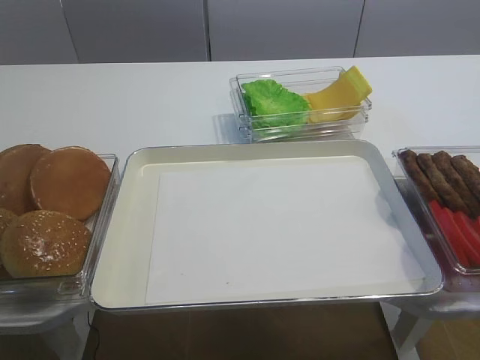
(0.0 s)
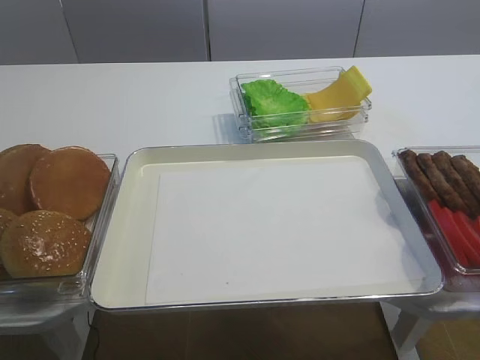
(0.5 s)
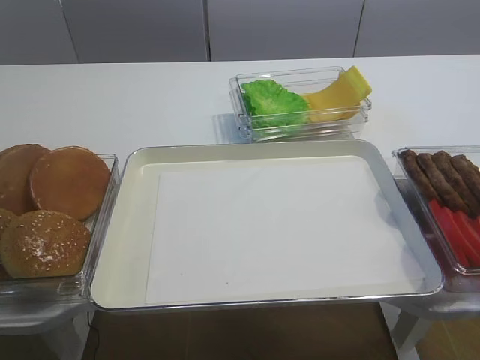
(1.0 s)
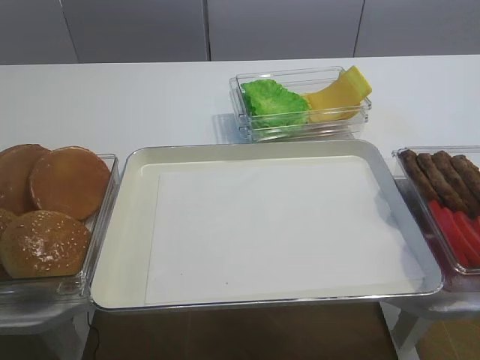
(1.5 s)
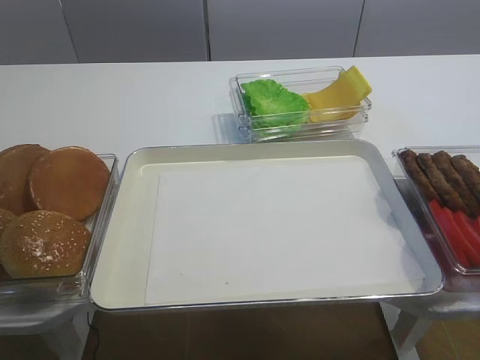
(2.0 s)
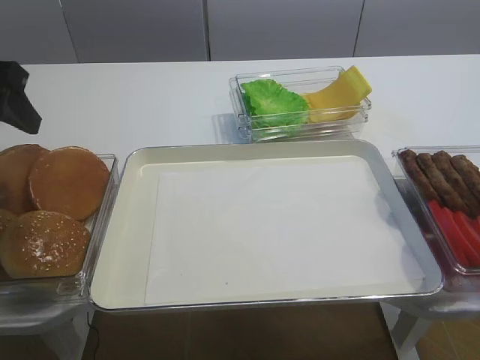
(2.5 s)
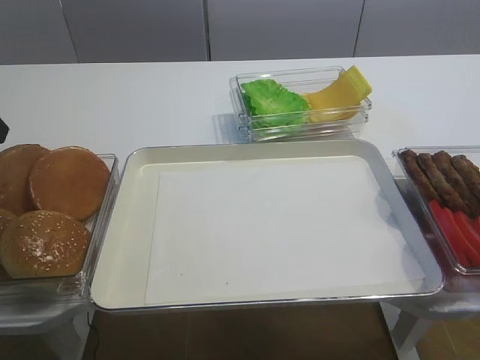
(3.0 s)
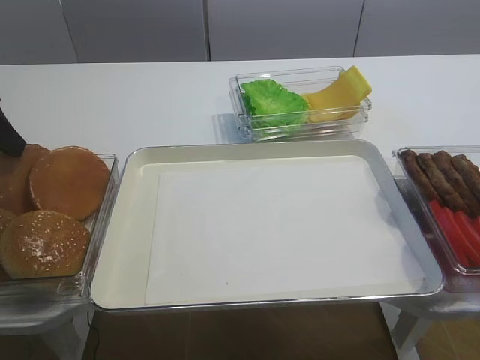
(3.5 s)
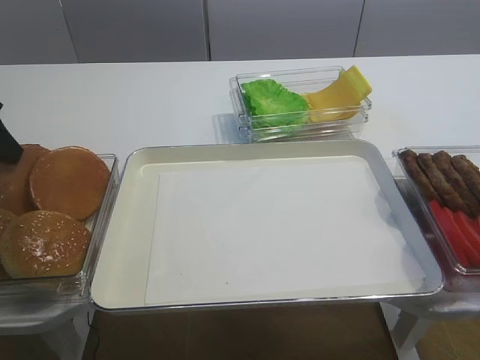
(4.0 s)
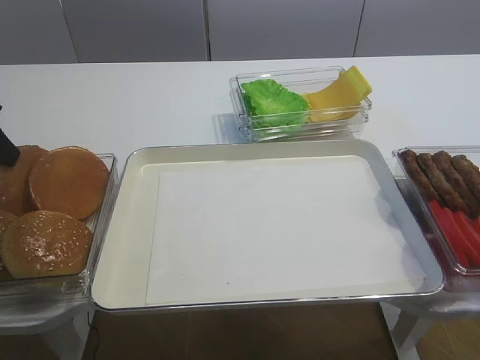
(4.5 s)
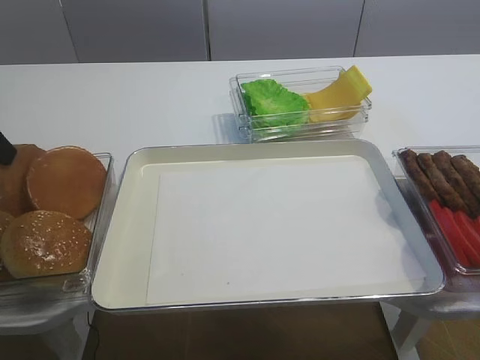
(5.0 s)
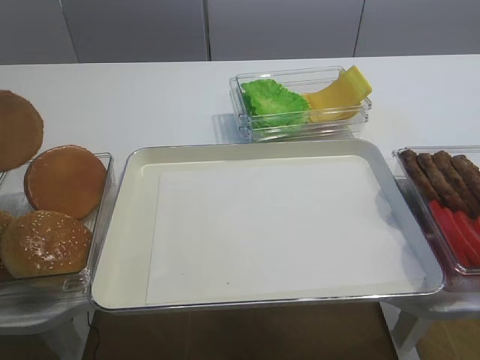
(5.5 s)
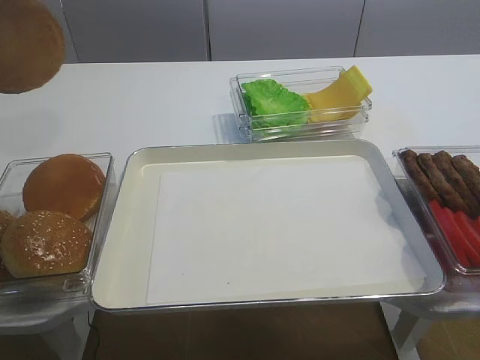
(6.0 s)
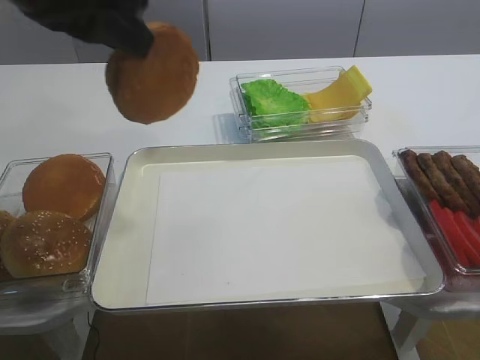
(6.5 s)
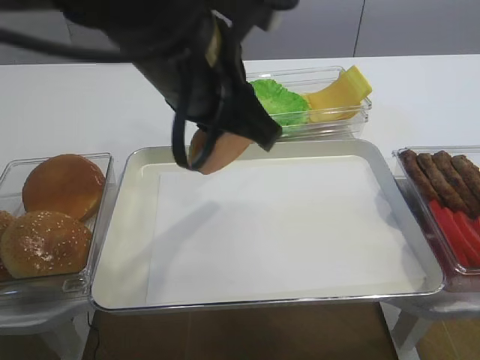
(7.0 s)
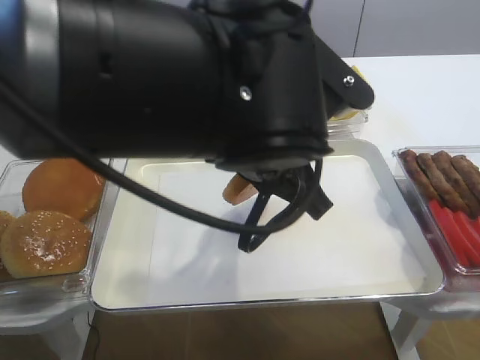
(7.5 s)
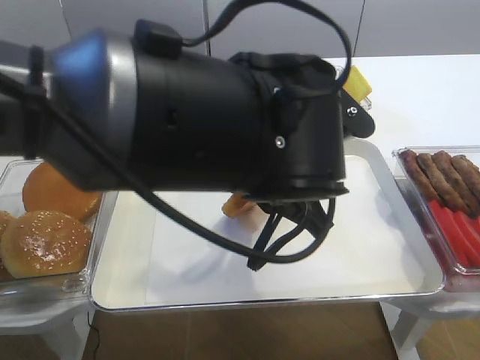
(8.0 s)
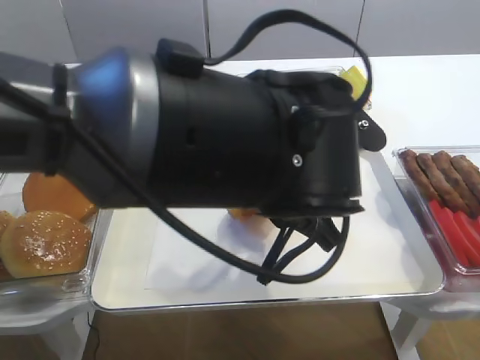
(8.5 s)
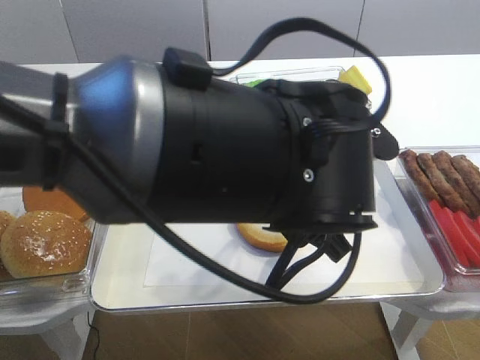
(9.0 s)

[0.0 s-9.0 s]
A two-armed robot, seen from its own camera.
Step, 0.0 to 5.0 s: Pick up the bread slice with the left gripper.
2.0 to 4.5 s: The left gripper travels forward and downward by some 15 cm, and closes its fingers.
4.5 to 7.0 s: The left gripper goes about 30 cm to the right.
7.0 to 9.0 s: The left gripper heads to the right and downward, covering roughly 10 cm, and opens its fingers.

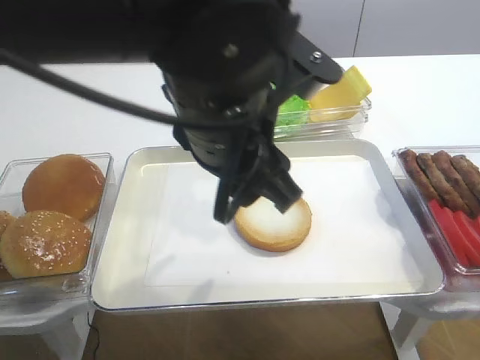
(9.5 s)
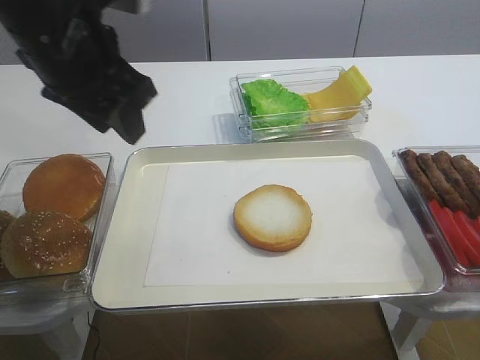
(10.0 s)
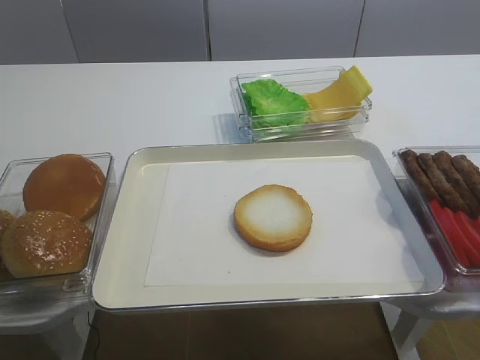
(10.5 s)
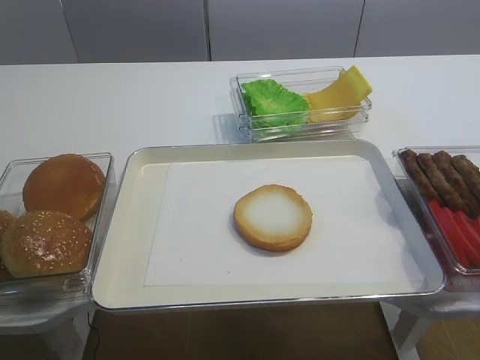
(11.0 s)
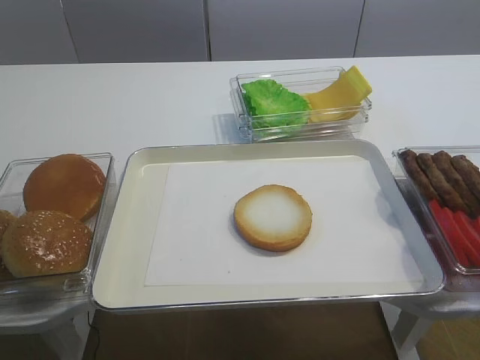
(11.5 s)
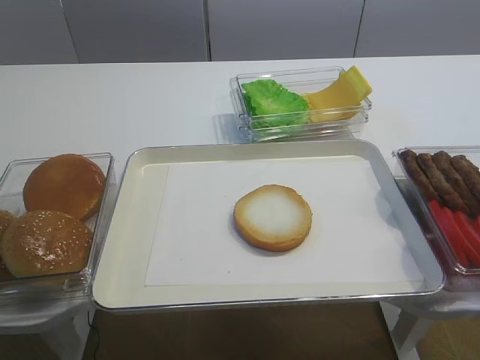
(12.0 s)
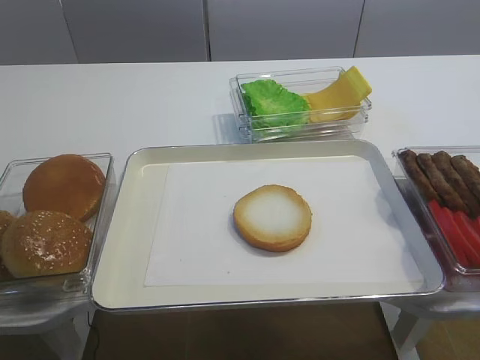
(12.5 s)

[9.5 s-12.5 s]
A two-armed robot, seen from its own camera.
9.5 to 11.0 s: The left gripper heads to the left, covering approximately 25 cm, and closes its fingers.

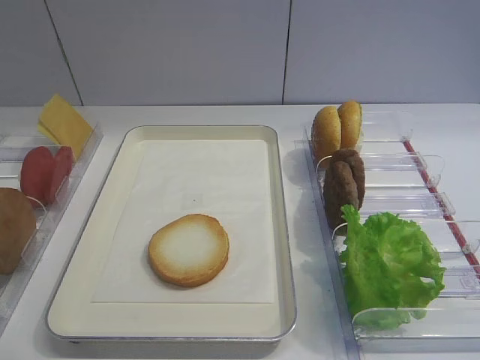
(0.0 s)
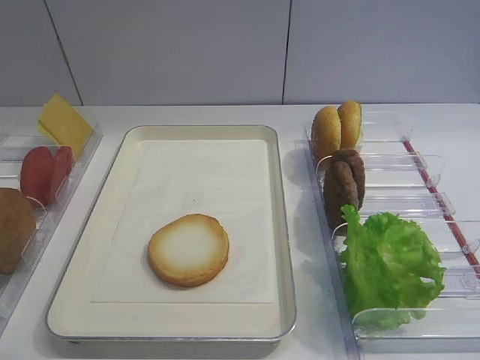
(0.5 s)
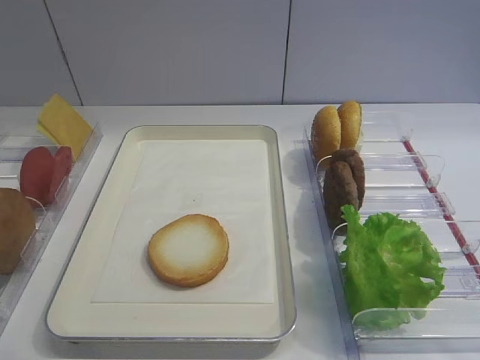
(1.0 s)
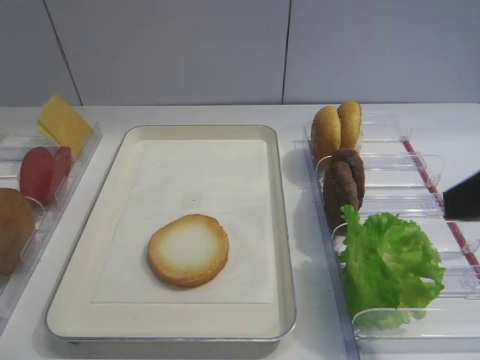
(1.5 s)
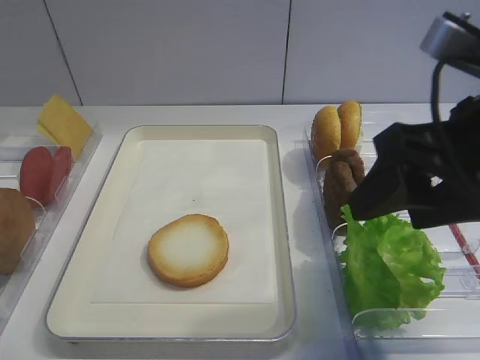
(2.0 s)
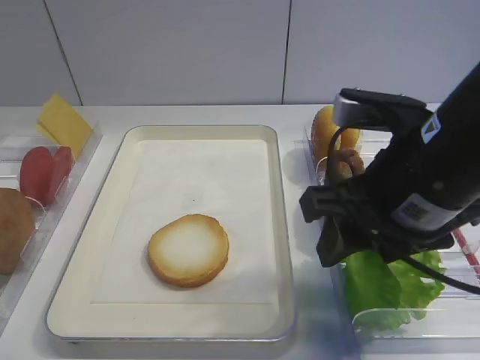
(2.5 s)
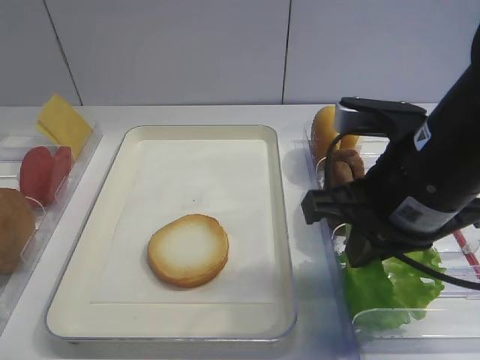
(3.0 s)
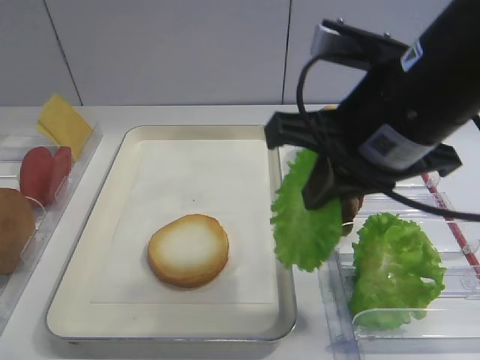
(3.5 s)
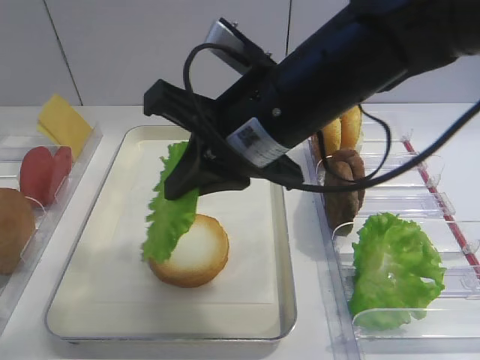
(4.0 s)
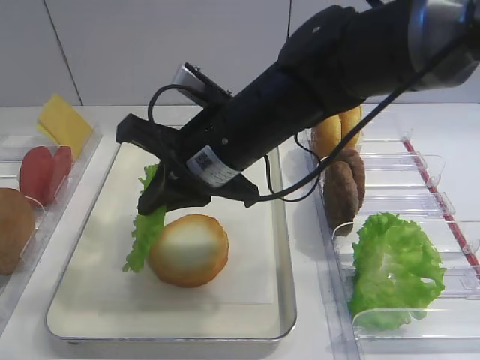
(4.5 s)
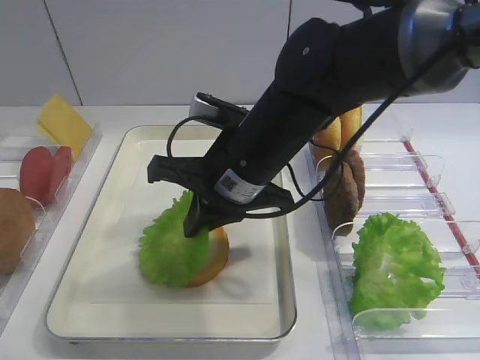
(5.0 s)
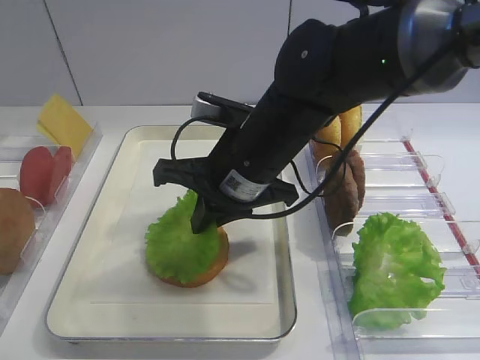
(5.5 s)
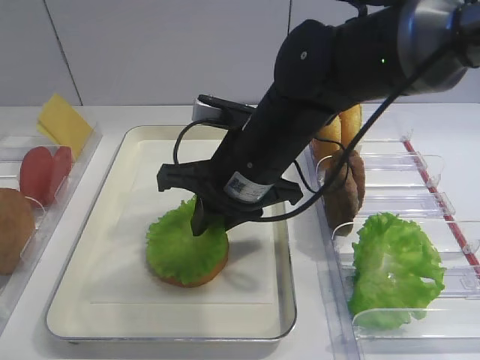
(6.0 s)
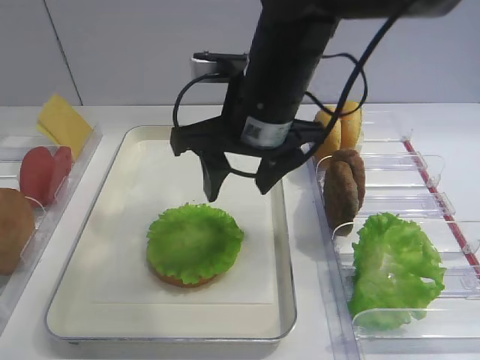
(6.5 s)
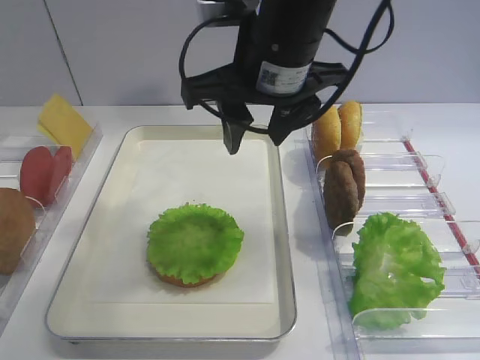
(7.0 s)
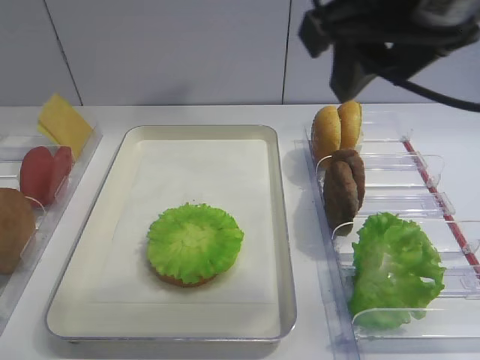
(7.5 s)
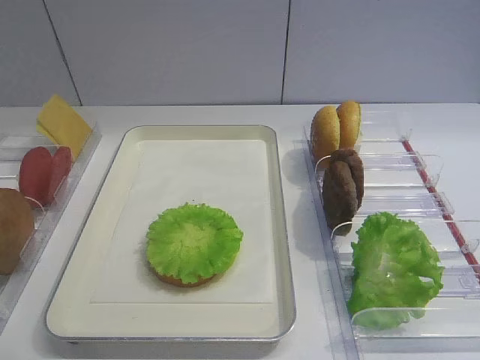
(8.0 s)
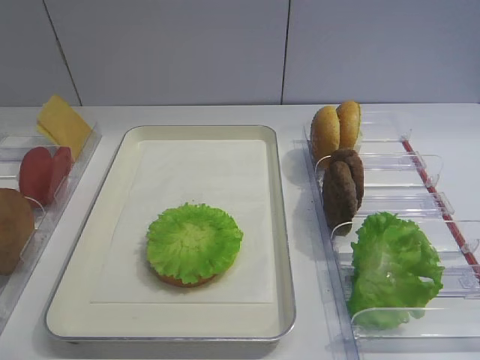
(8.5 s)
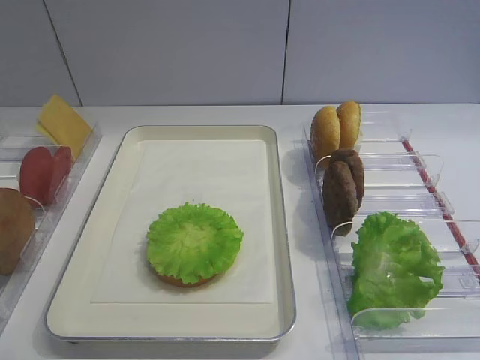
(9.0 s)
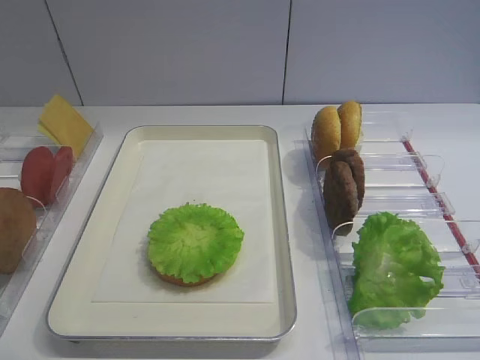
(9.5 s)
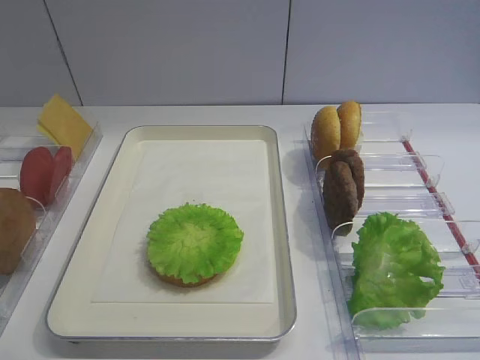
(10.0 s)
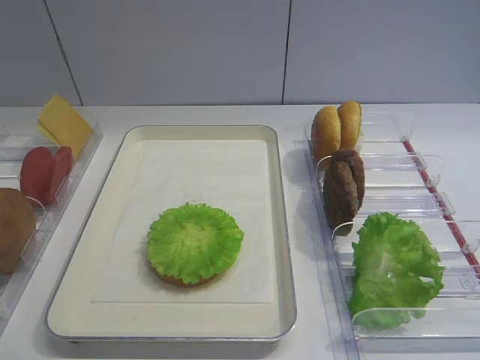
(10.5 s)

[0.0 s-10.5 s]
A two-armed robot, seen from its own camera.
Step, 0.0 to 3.0 s: Pick up the lettuce leaf with the right gripper.
Step, 3.5 to 6.5 s: Place the lettuce leaf on the bread slice with the right gripper.
2.0 to 4.0 s: The right gripper moves to the left and forward, some 15 cm, and closes up.
4.0 to 6.5 s: The right gripper opens its fingers.
6.5 to 8.5 s: The right gripper travels backward and to the right by roughly 40 cm.

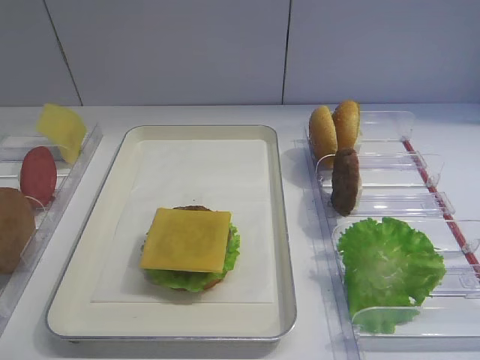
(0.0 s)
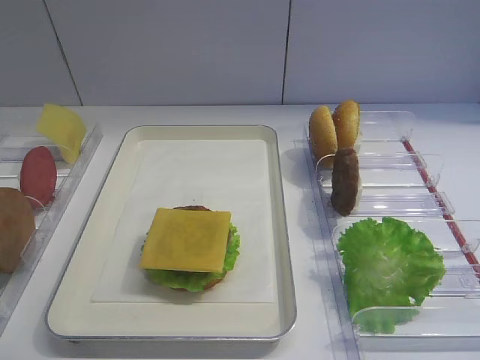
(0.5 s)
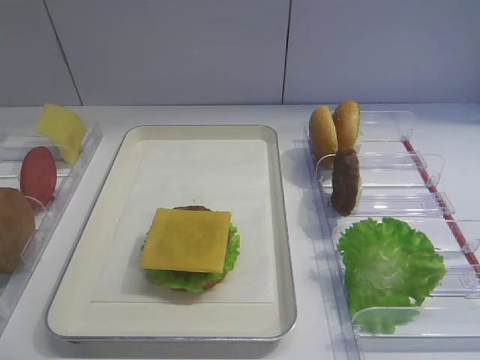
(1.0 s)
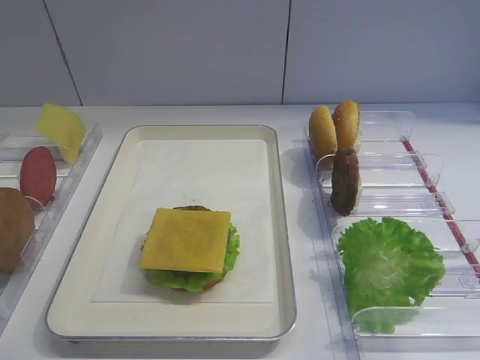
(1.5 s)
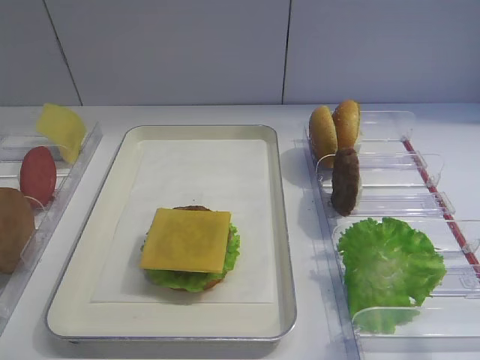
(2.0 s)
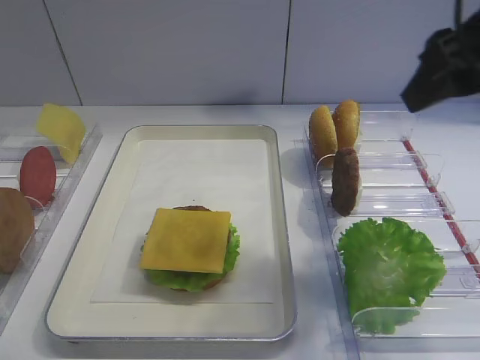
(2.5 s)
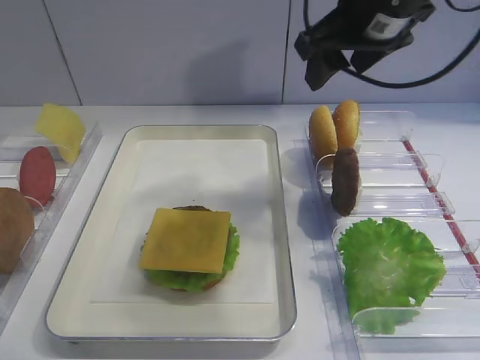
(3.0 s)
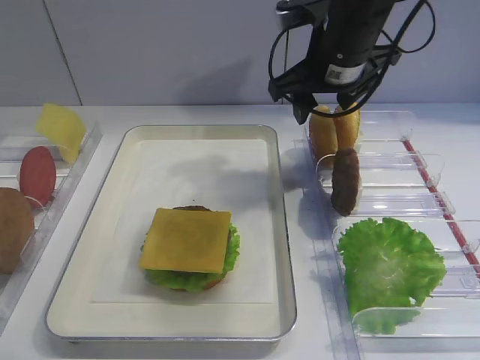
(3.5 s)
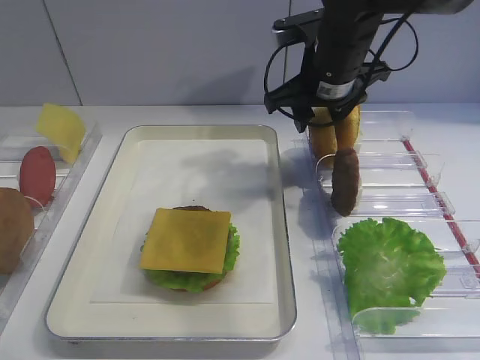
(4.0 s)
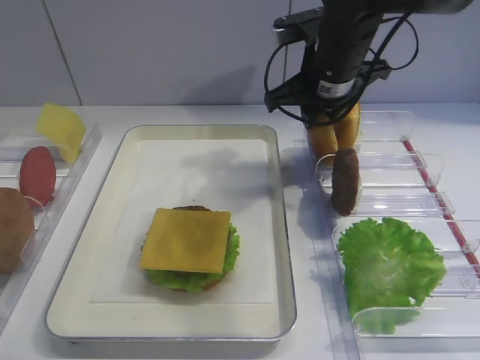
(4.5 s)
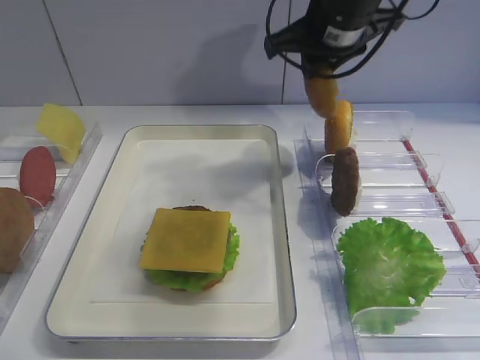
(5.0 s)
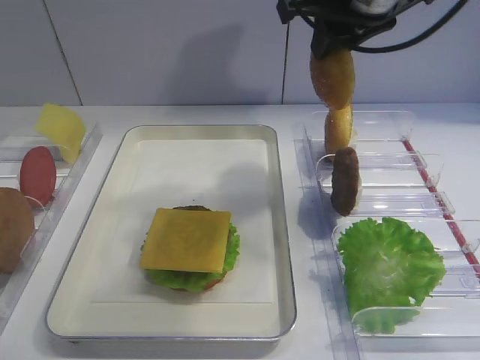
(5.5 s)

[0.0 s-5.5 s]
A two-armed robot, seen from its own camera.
2.0 to 3.5 s: The right gripper is displaced forward and to the left by approximately 30 cm.
3.5 to 5.5 s: The right gripper moves upward, approximately 10 cm, and closes its fingers.
